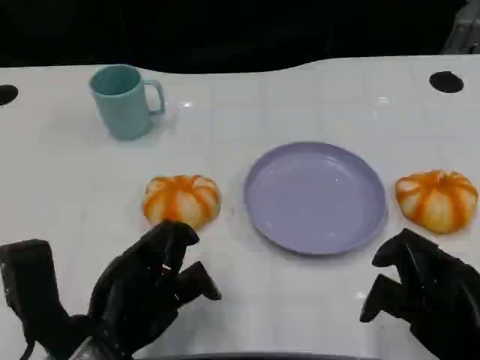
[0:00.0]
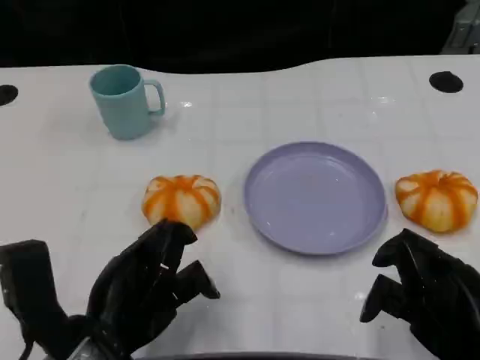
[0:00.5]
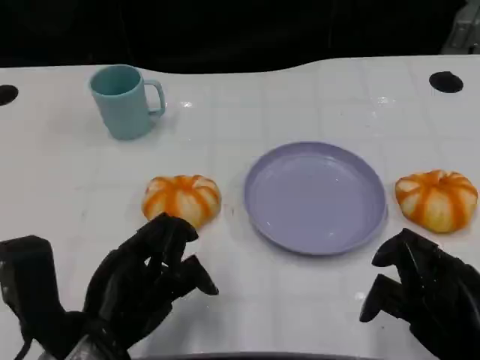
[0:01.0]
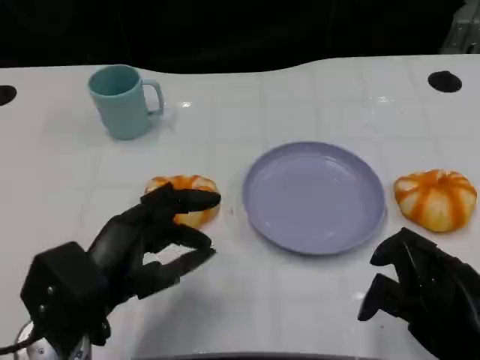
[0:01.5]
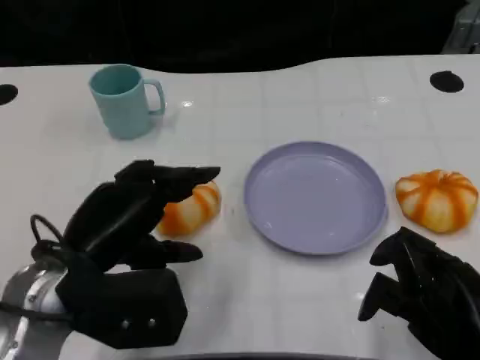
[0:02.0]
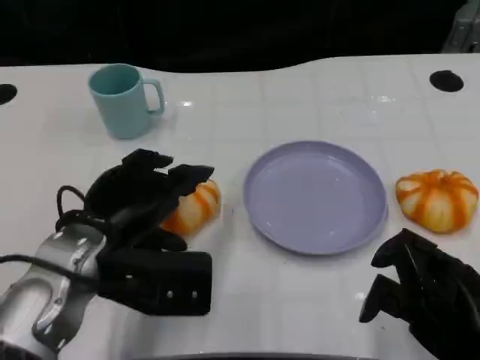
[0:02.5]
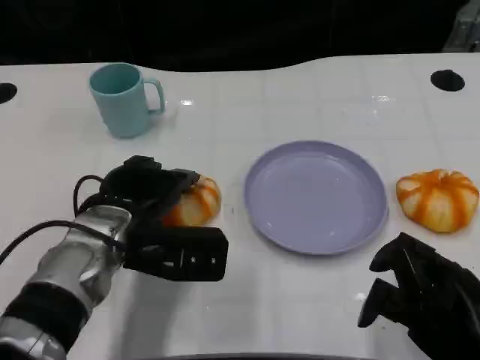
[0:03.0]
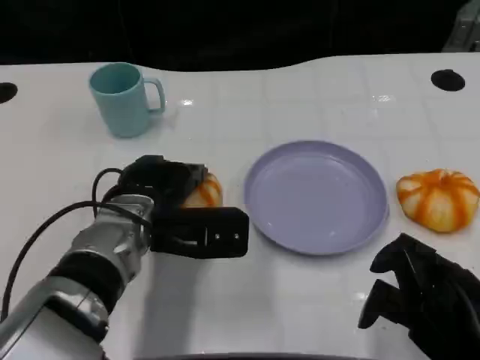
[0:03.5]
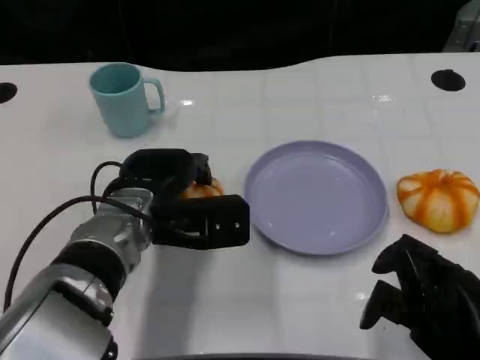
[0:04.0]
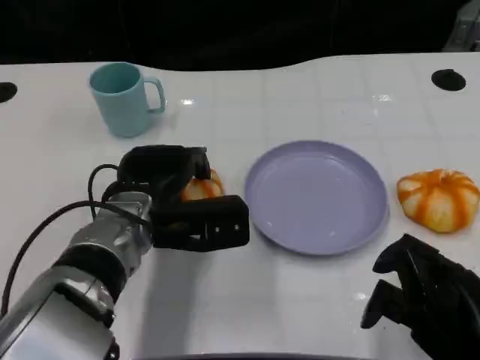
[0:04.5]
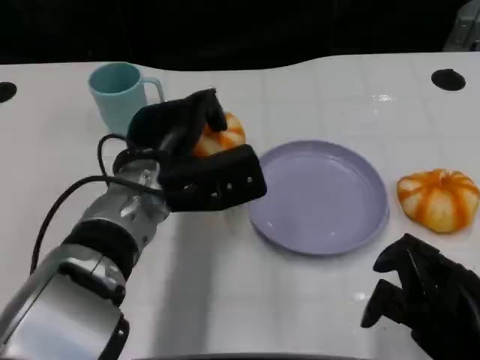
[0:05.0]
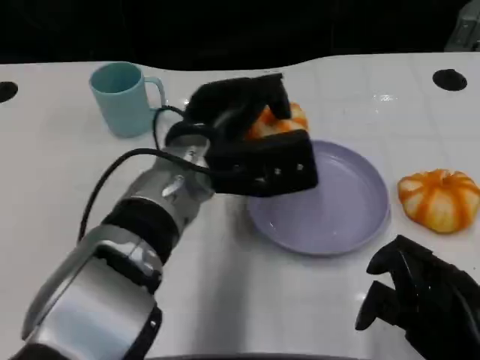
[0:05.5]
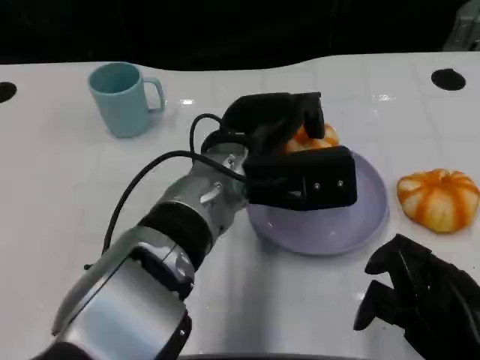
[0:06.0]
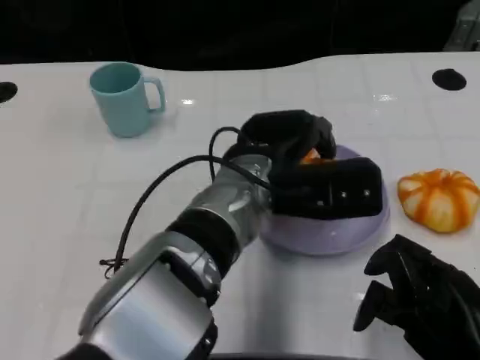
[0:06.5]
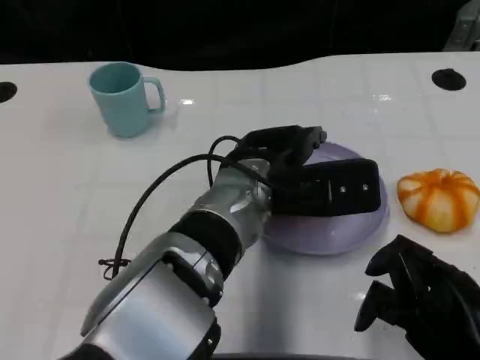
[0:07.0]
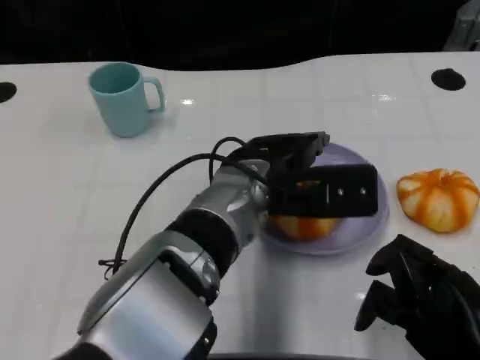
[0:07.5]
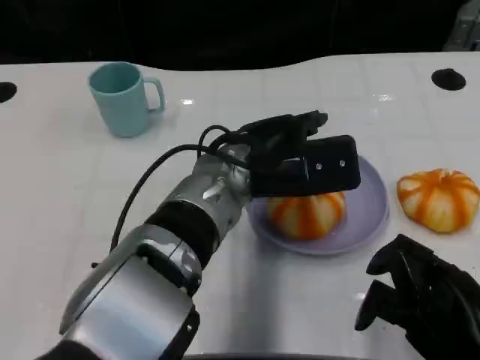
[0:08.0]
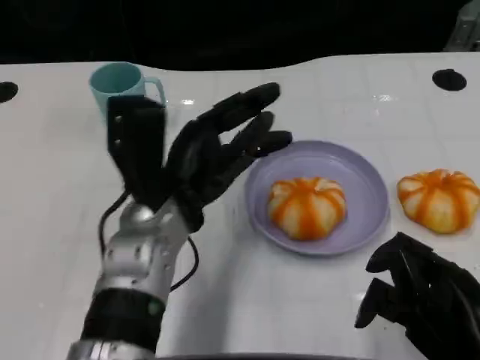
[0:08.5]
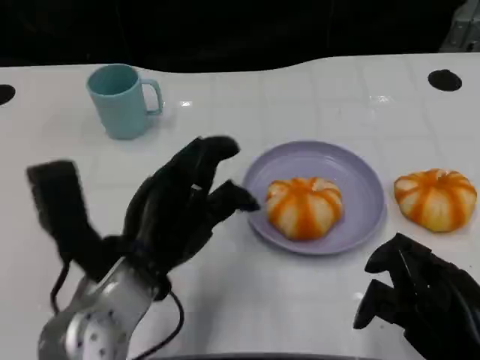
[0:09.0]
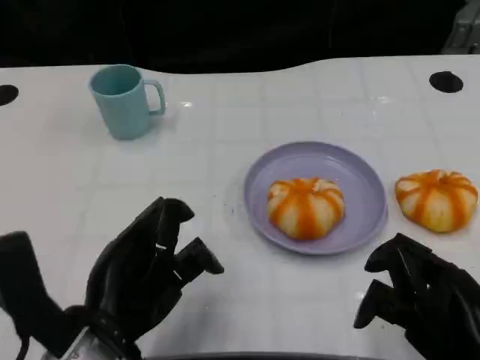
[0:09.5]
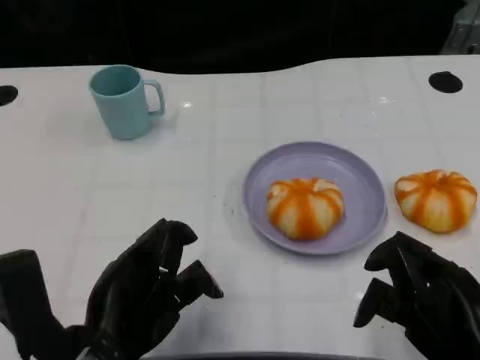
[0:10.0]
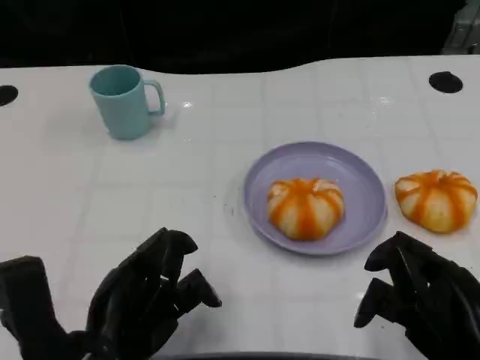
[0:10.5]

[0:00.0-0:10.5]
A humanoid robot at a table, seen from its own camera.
Task of the whole recording: Grasp the bread from the table and place it into the plate.
0:00.0 to 0:02.0: The left hand shifts by roughly 5 cm.
0:02.0 to 0:04.0: The left hand is displaced forward and to the right by about 10 cm.
0:04.0 to 0:06.5: The left hand heads to the right, covering some 10 cm.
0:06.5 to 0:08.5: The left hand moves to the left, roughly 10 cm.
0:08.5 to 0:10.5: The left hand heads backward and to the left, covering roughly 15 cm.

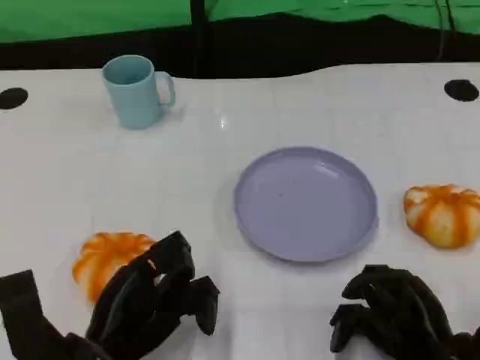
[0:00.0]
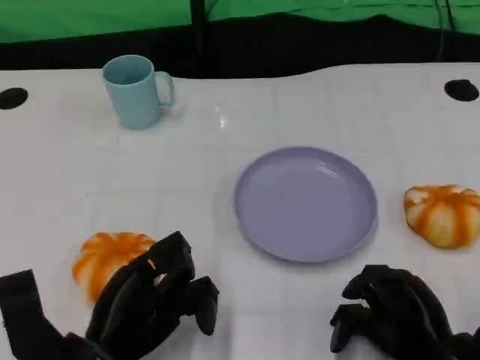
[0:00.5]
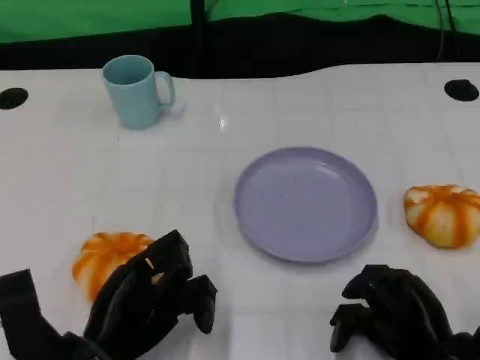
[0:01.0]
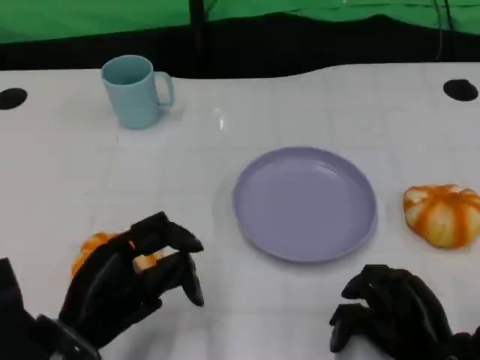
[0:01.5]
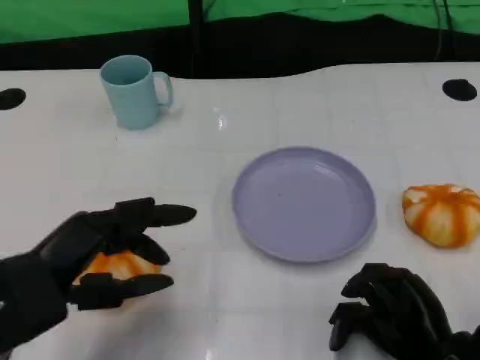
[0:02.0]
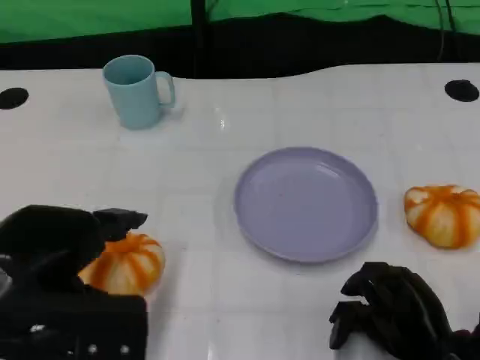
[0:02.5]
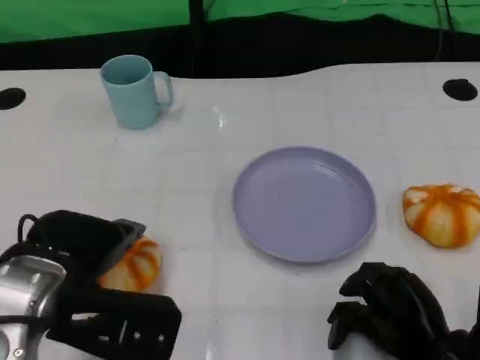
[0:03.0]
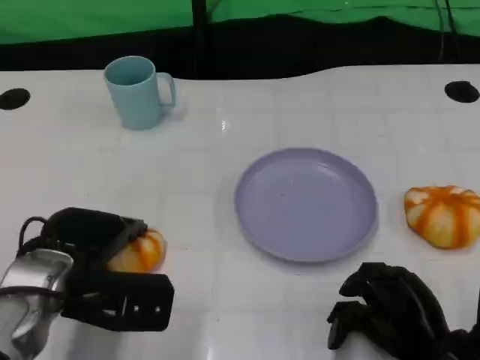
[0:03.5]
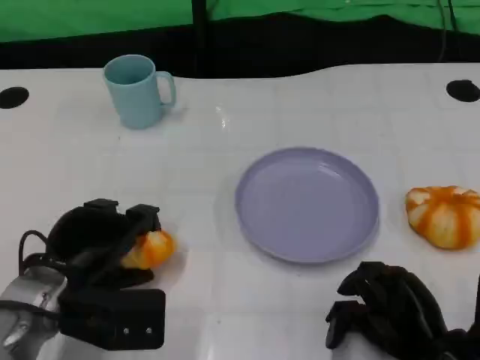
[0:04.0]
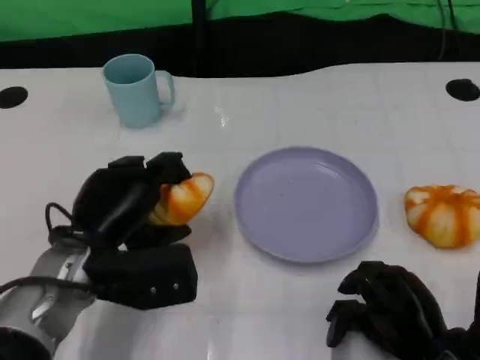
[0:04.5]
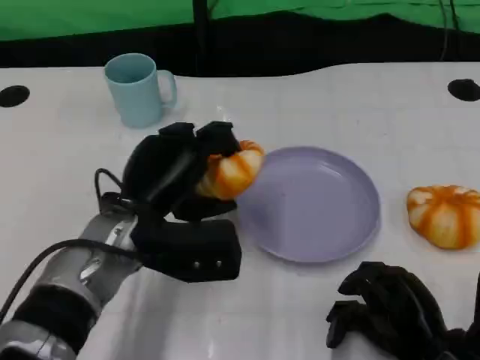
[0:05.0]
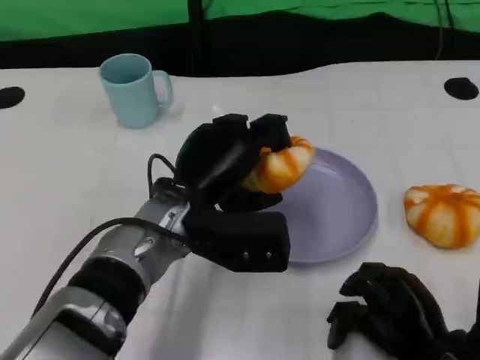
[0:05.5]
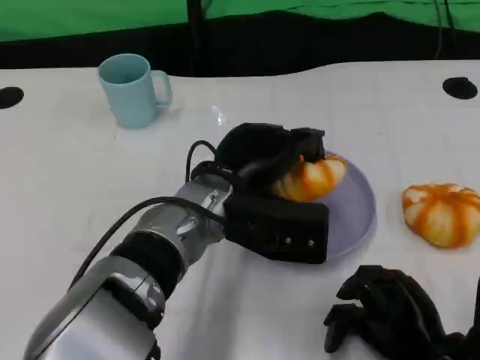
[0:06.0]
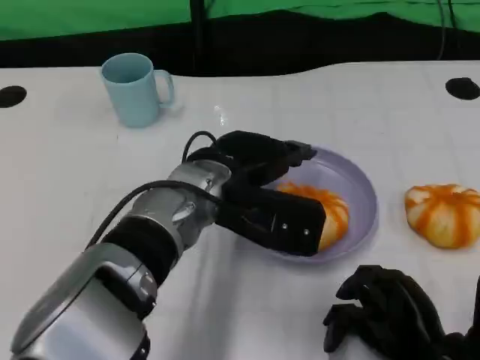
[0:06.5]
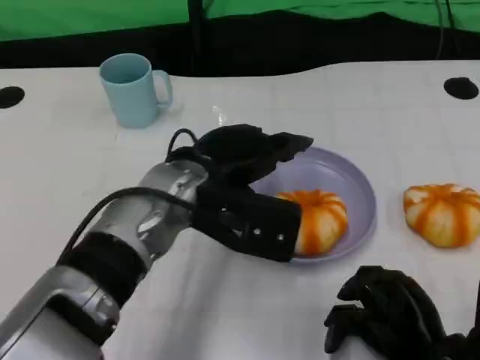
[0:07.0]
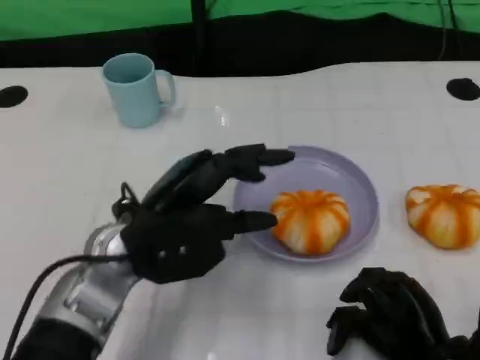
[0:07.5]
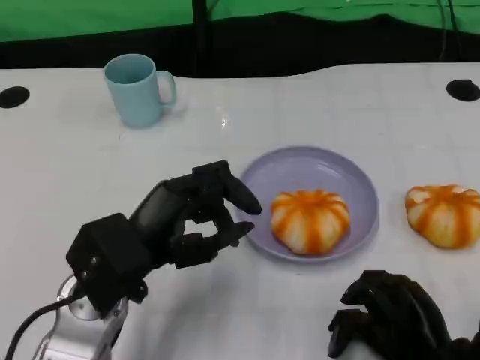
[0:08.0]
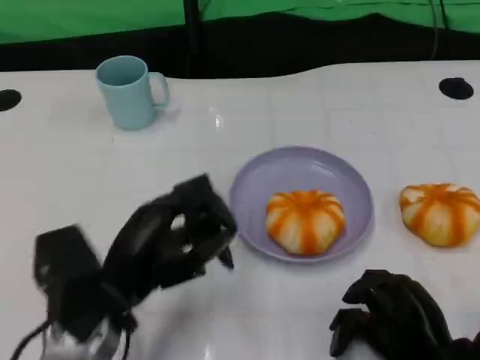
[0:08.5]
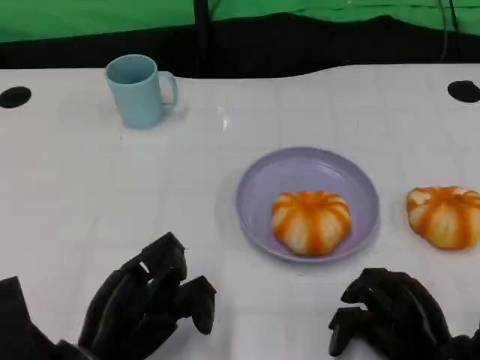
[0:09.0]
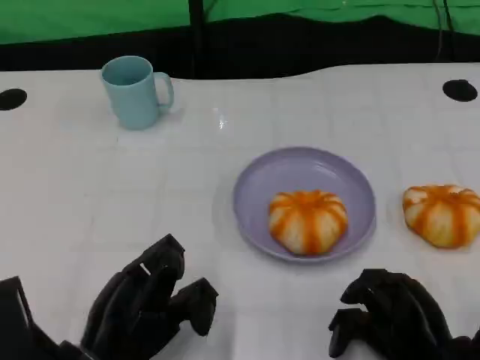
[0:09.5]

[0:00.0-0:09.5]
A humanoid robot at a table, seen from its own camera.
Task of the whole recording: Grasp the bread from the table and place it into the plate.
0:00.0 to 0:02.0: The left hand shifts some 10 cm upward and to the left.
0:02.0 to 0:04.0: The left hand shifts about 10 cm downward and forward.
0:04.0 to 0:05.5: The left hand is displaced to the right by about 15 cm.
0:05.5 to 0:07.5: The left hand heads to the left, covering some 5 cm.
0:07.5 to 0:09.5: The left hand heads backward, downward and to the left, covering about 15 cm.

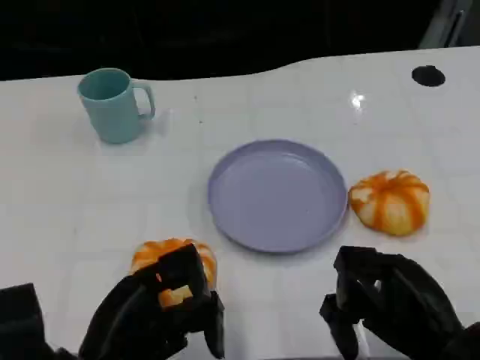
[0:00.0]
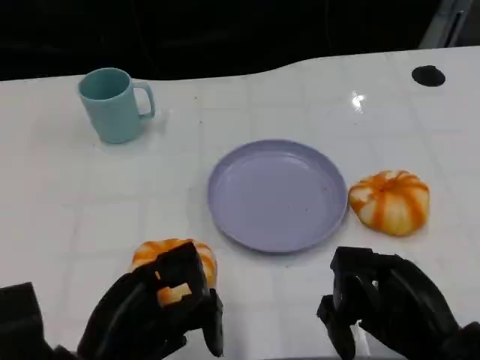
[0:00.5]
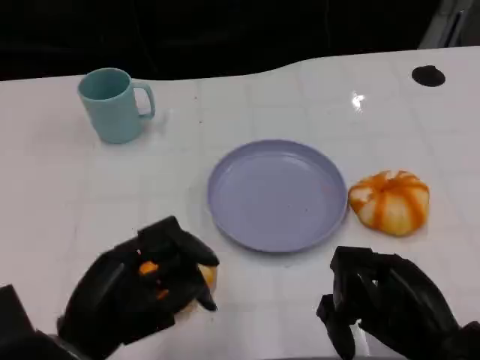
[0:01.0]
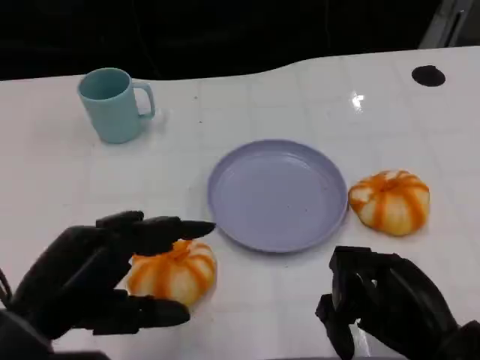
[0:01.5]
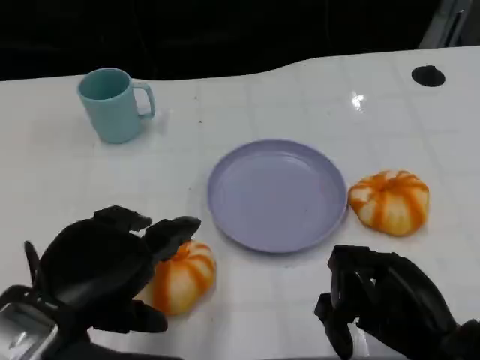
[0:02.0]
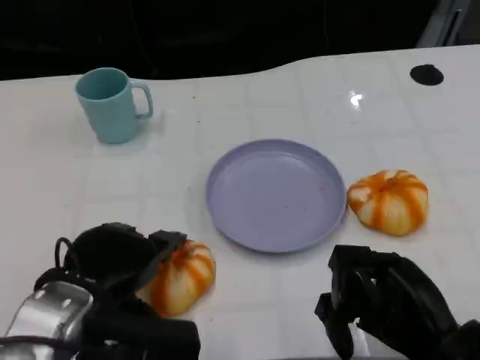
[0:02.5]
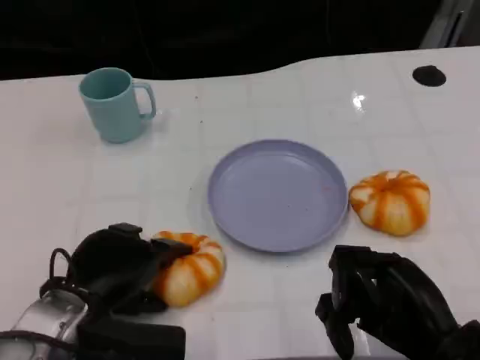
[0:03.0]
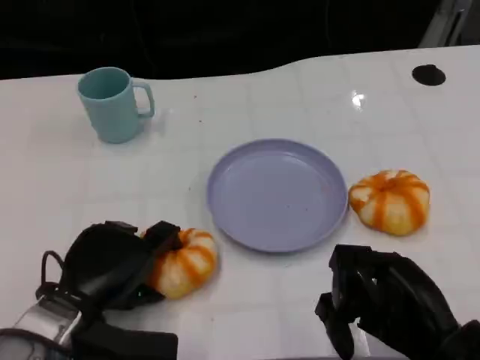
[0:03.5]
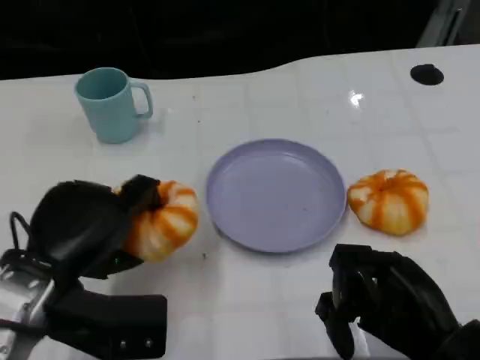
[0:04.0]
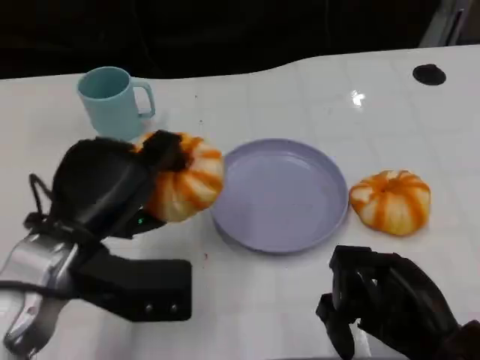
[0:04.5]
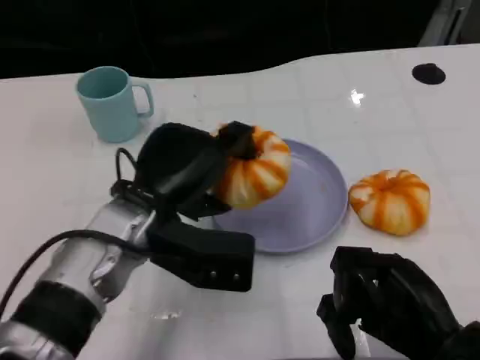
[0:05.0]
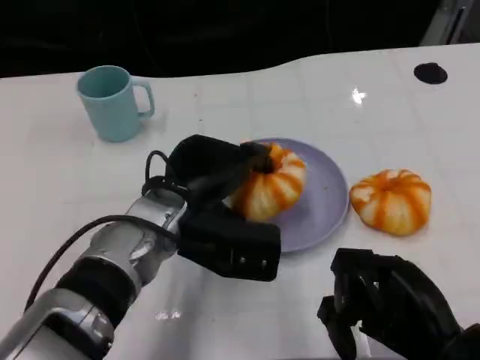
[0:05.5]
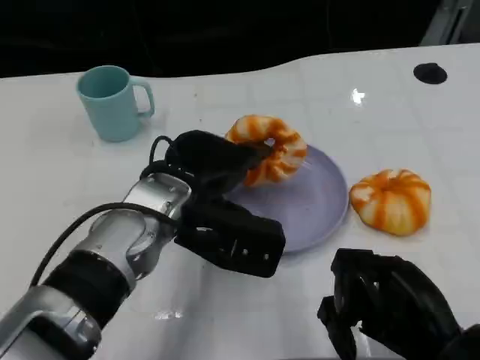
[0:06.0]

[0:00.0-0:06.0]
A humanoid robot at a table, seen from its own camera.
Task of the whole recording: Grasp the bread from the table and place it into the plate.
0:00.0 to 0:02.0: The left hand shifts some 5 cm upward.
0:02.0 to 0:04.0: The left hand reaches about 10 cm downward, then returns.
0:04.0 to 0:06.0: The left hand travels to the right and forward by some 15 cm.
